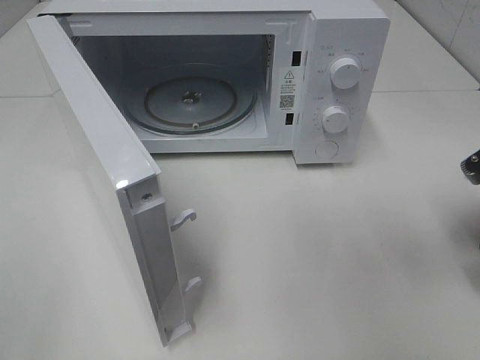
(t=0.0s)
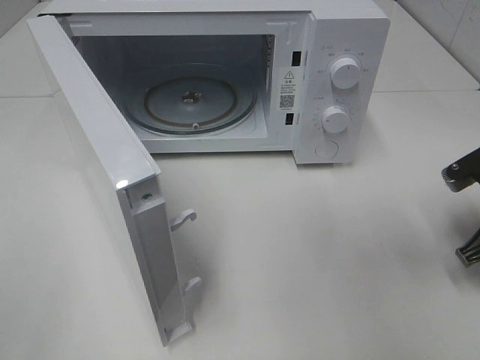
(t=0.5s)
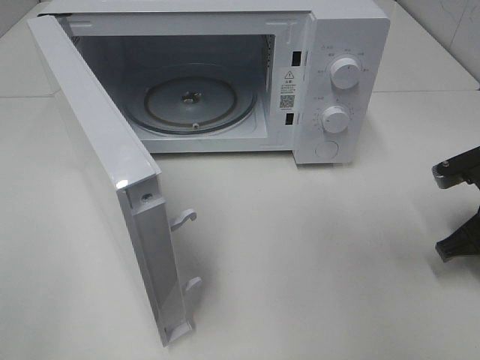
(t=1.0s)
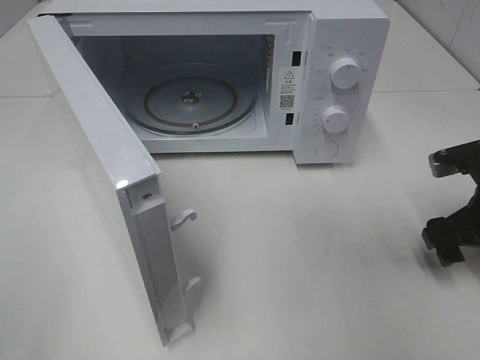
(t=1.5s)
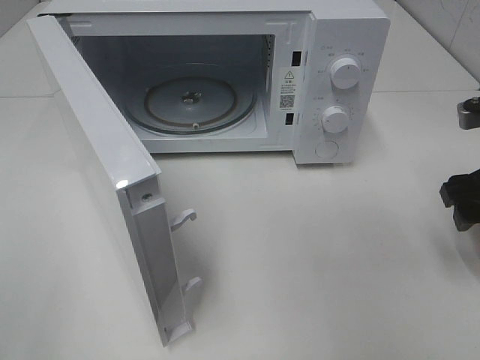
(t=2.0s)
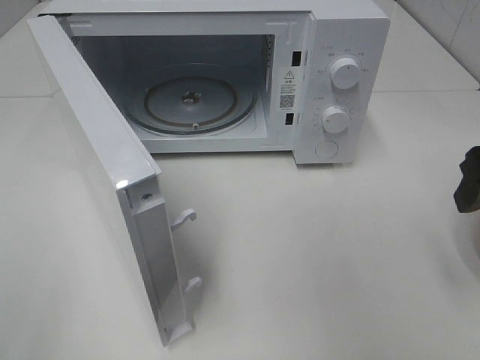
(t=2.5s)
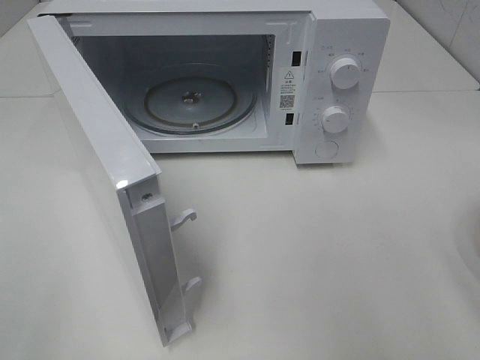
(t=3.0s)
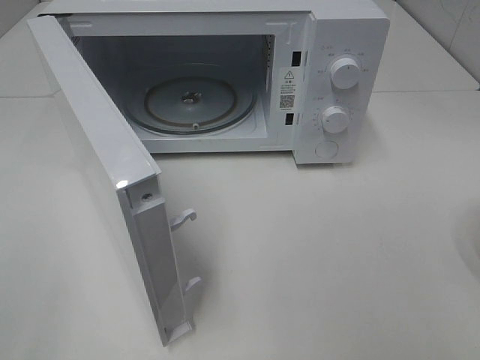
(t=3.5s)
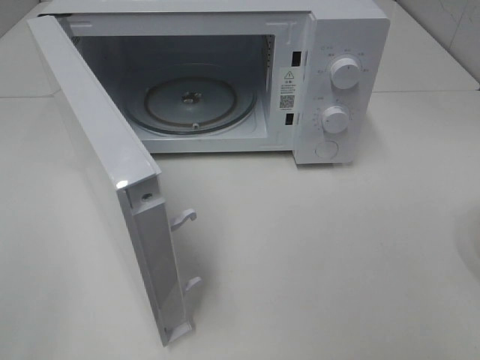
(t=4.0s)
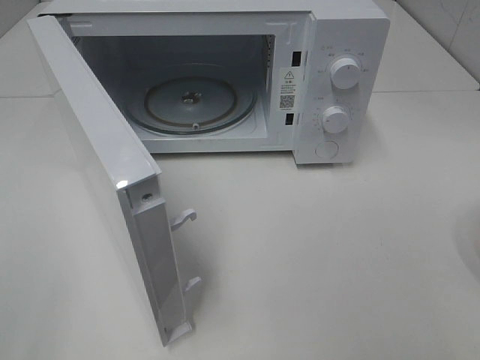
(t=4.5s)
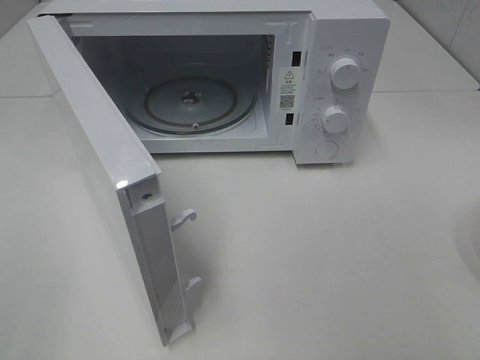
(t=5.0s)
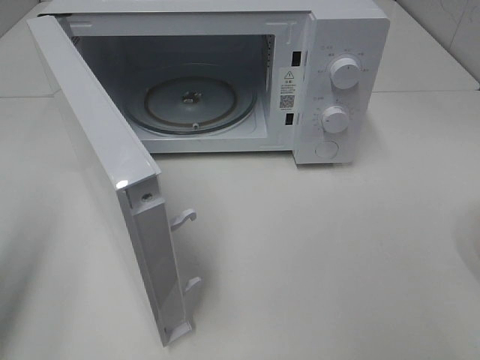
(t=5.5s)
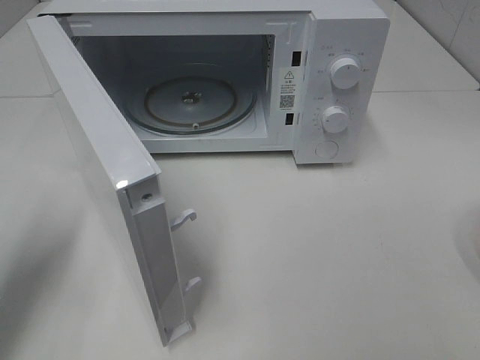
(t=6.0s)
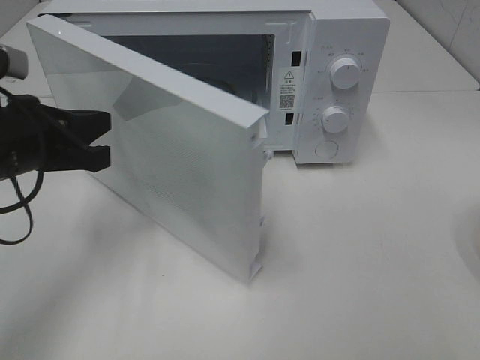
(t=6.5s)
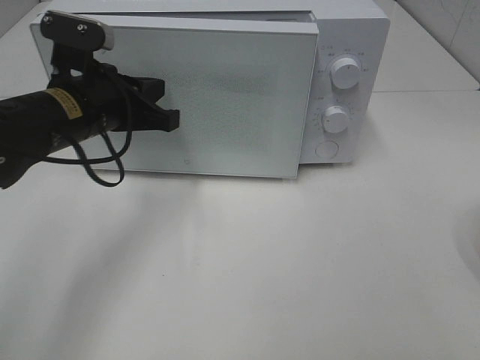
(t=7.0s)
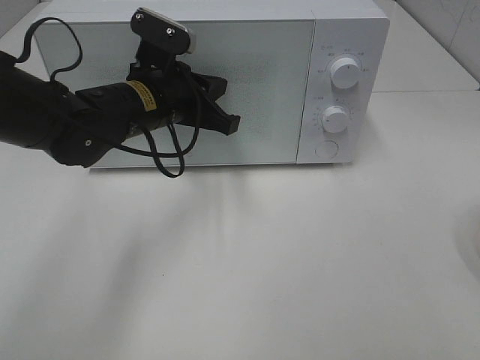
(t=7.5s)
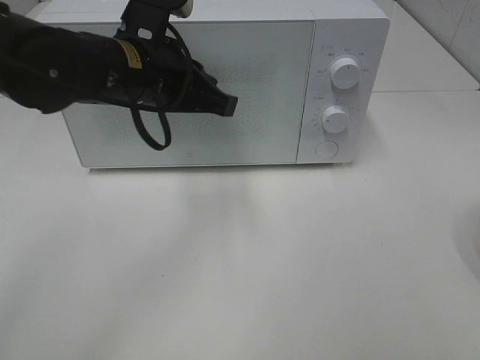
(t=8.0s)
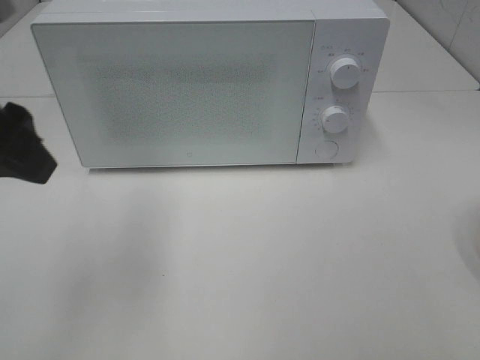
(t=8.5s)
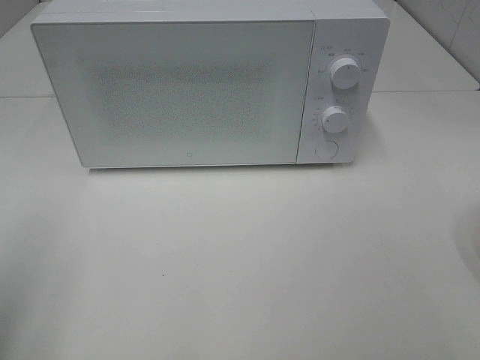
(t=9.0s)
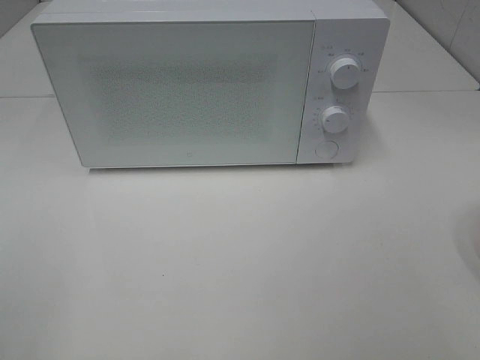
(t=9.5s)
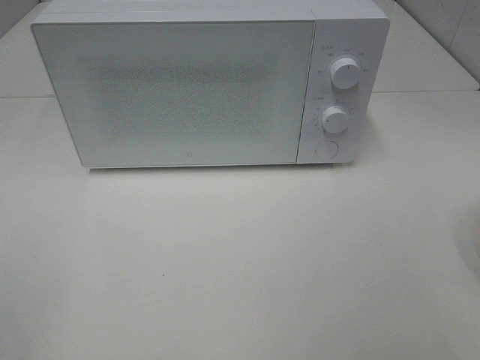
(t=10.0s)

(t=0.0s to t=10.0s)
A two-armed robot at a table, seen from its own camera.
Task of the whole recording: Heat the burger.
Step, t=1.5s - t=7.5s: Left hand: close the microwave door.
t=0.0s - t=2.0s: The right gripper shifts by roughly 5 cm, and opens.
t=2.0s - t=4.0s: The right gripper moves backward, approximately 25 cm.
t=4.0s - t=6.0s: The left gripper goes some 20 cm forward, and closes its fingers.
t=6.0s - t=8.0s: The left gripper shifts roughly 20 cm to the right and forward.
t=8.0s - t=10.0s: The left gripper shifts approximately 40 cm backward and to the left, and opens up.
